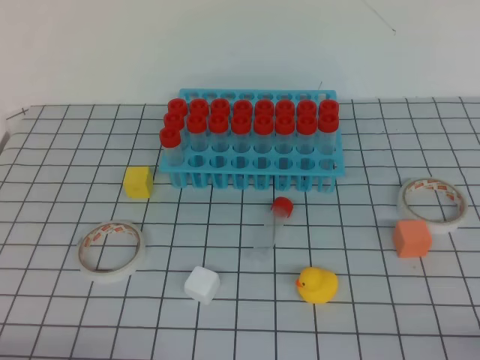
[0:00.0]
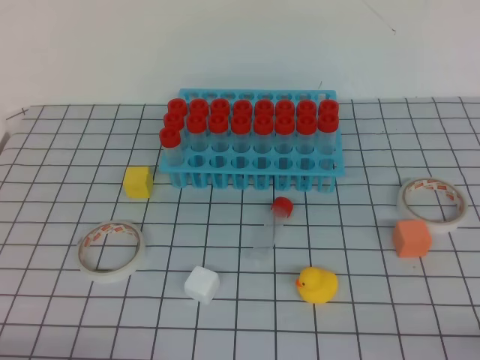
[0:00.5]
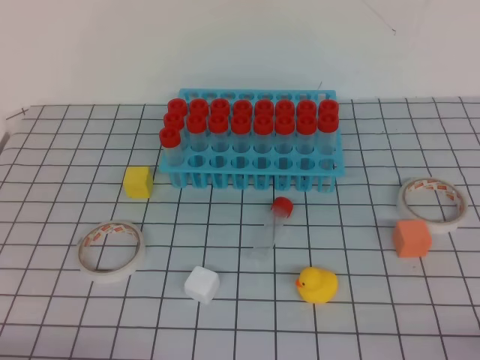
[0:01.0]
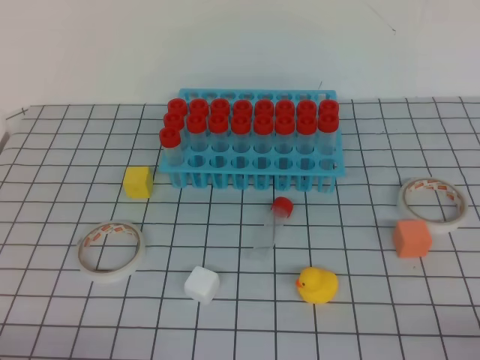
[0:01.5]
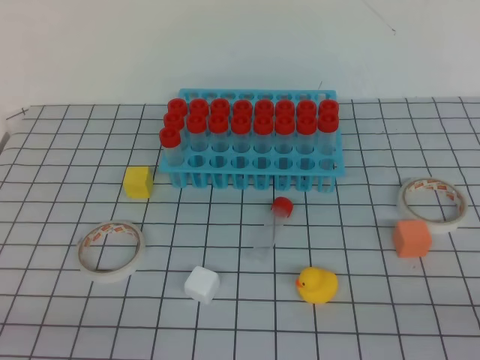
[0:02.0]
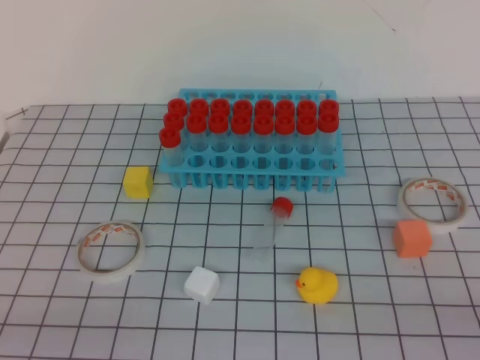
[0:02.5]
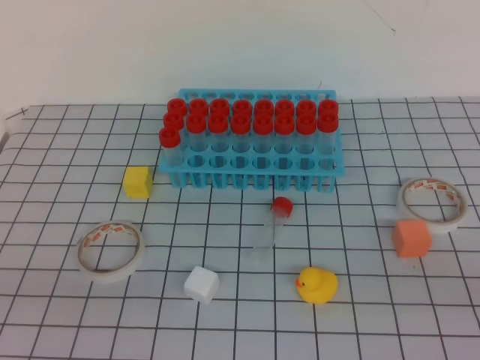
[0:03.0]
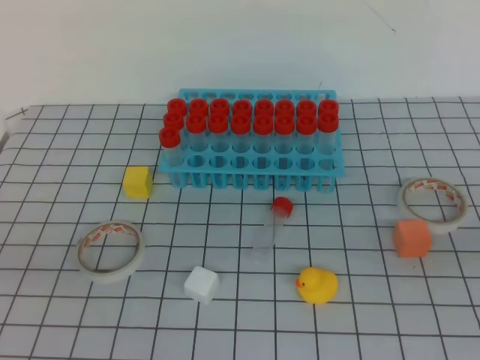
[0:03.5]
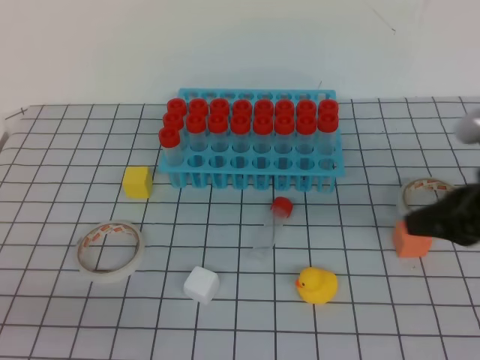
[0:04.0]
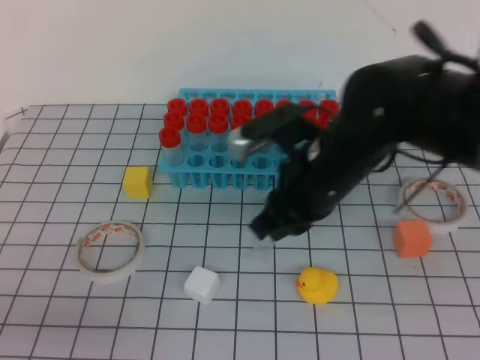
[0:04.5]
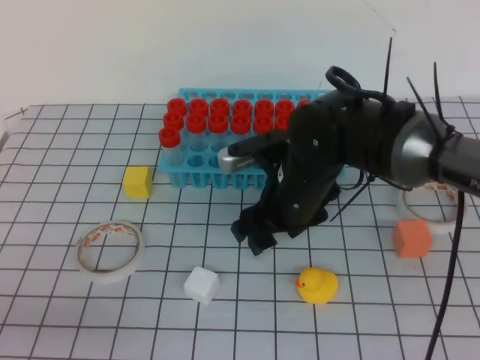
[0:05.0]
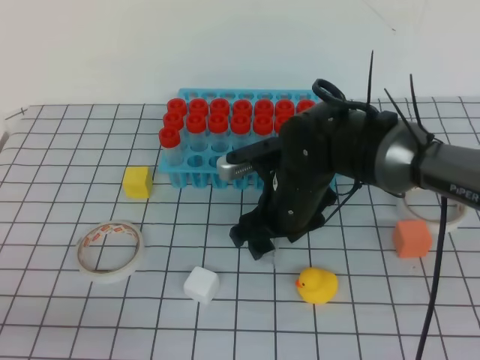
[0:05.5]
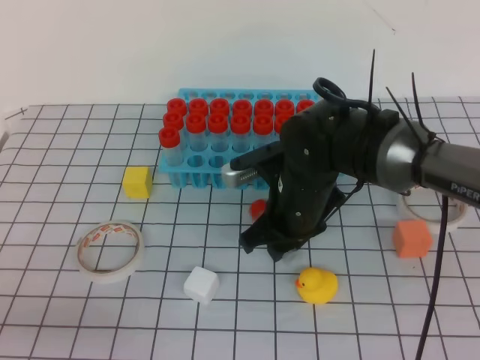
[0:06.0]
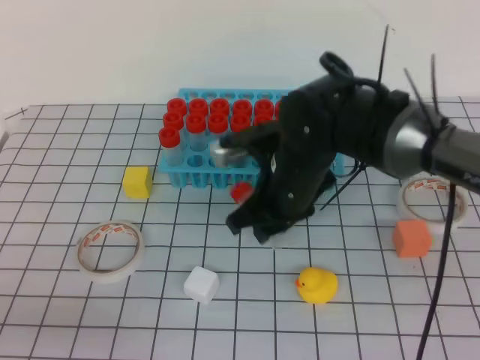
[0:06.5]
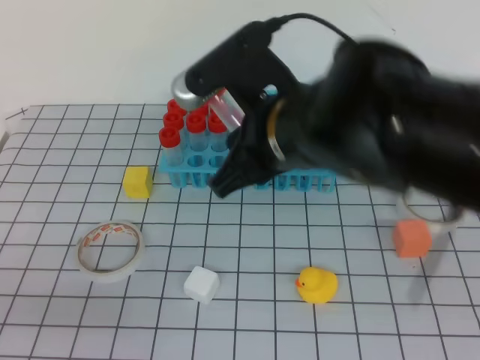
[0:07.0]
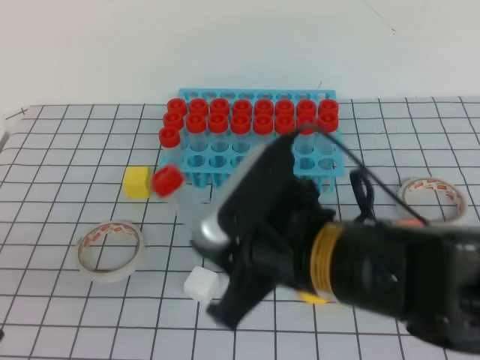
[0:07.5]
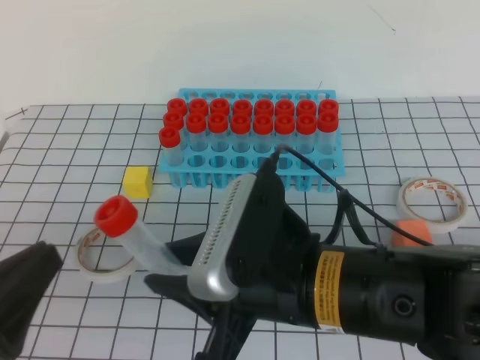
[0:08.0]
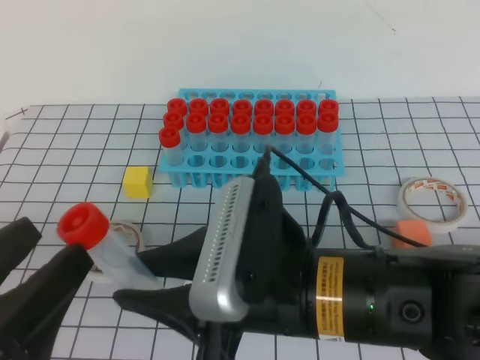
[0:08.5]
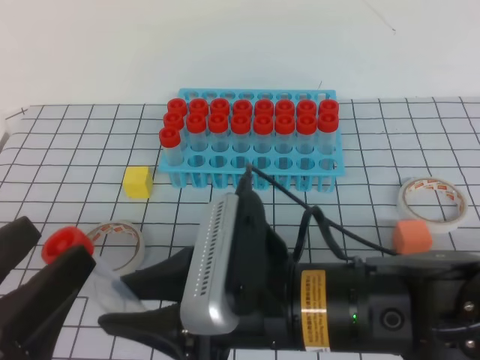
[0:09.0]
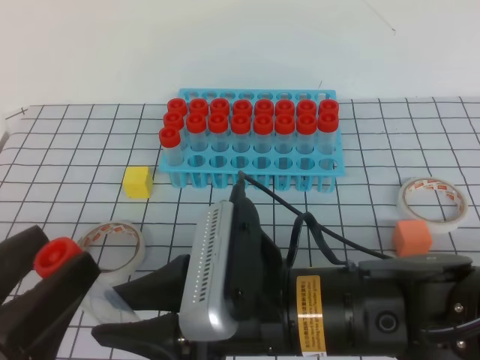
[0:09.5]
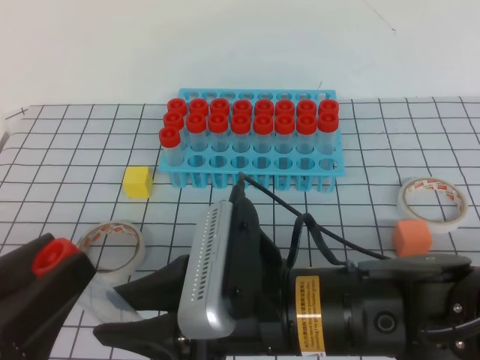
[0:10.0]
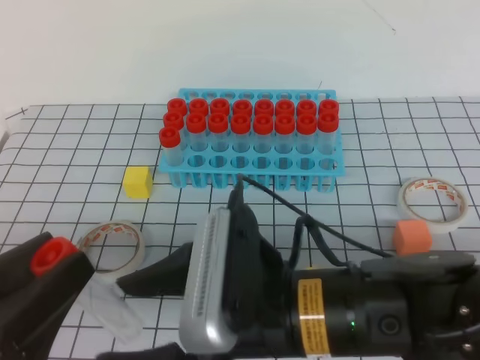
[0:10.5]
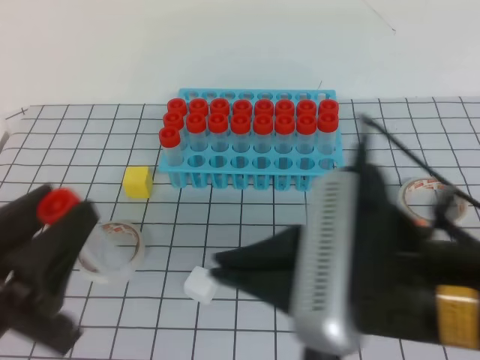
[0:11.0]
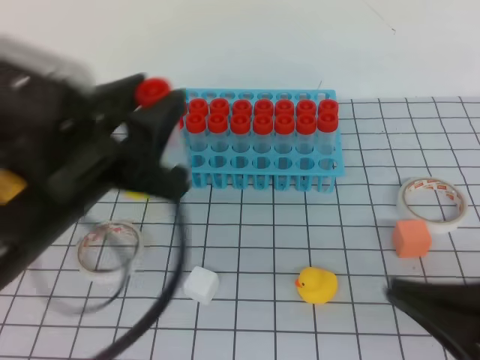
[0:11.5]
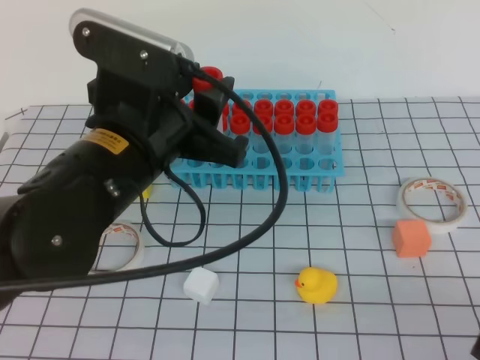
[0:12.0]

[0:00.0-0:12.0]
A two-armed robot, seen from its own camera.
0:02.0 to 0:04.0: The right gripper travels forward by roughly 20 cm.
0:04.0 to 0:06.0: The right gripper travels to the left, forward and downward by approximately 25 cm, and opens up.
0:06.0 to 0:08.0: The right gripper moves backward and upward, roughly 20 cm.
0:08.0 to 0:10.0: The left gripper opens up.
0:10.0 to 0:12.0: The right gripper is displaced to the right and backward by some 25 cm, and closes up. The left gripper moves forward and to the right, approximately 20 cm.

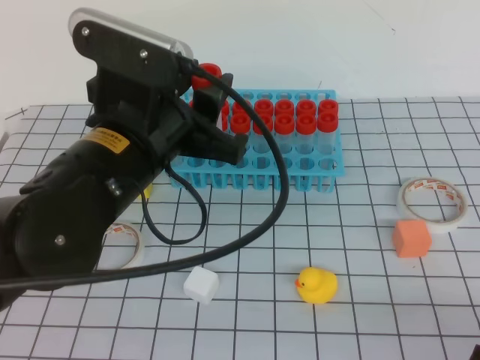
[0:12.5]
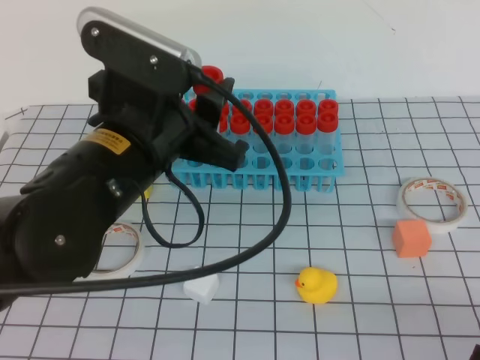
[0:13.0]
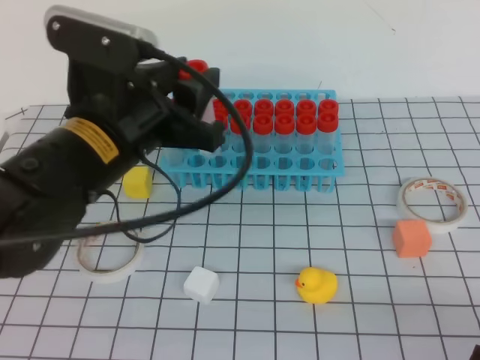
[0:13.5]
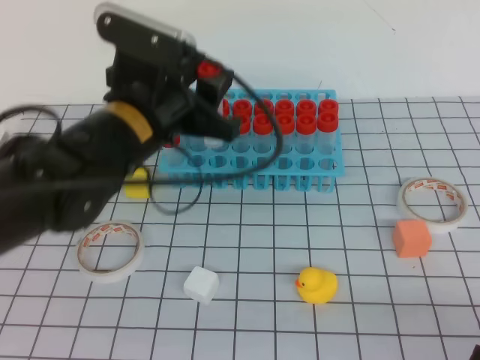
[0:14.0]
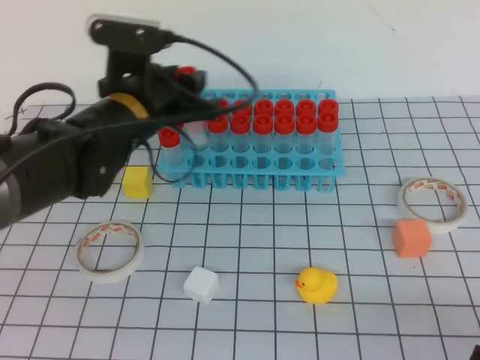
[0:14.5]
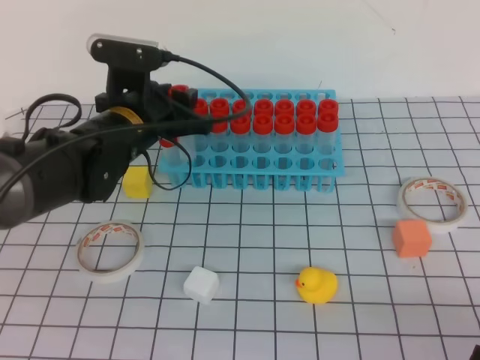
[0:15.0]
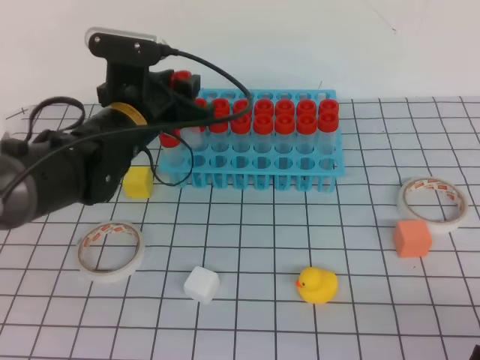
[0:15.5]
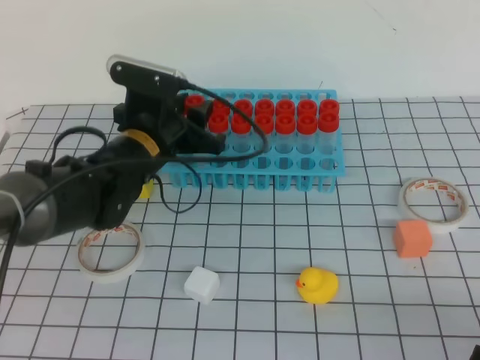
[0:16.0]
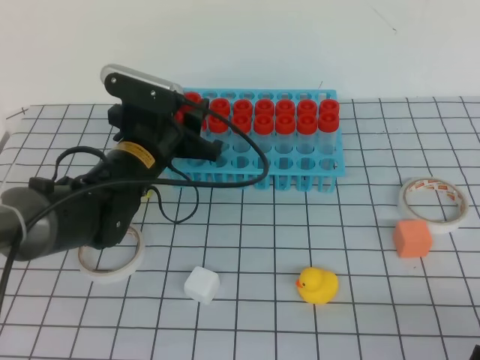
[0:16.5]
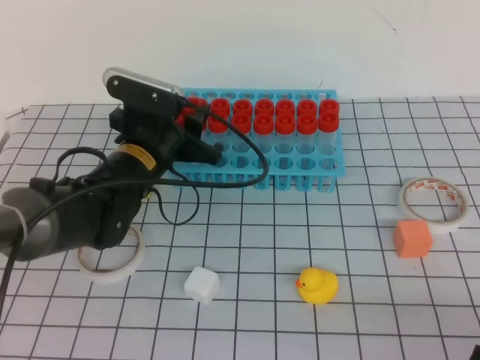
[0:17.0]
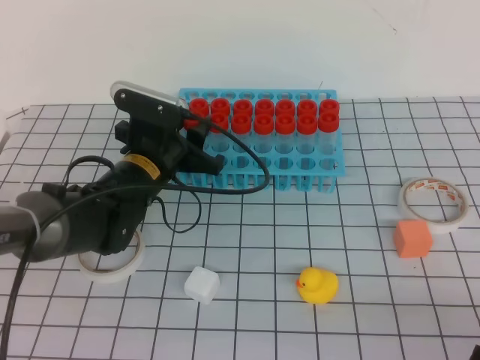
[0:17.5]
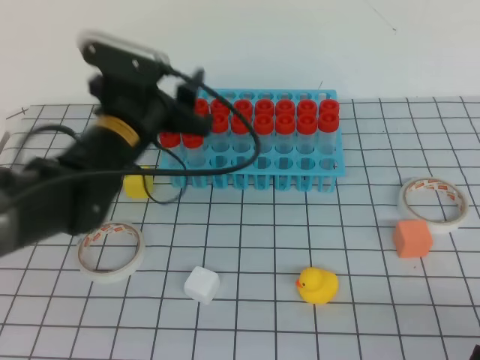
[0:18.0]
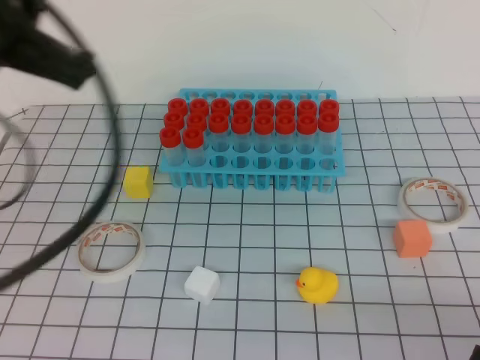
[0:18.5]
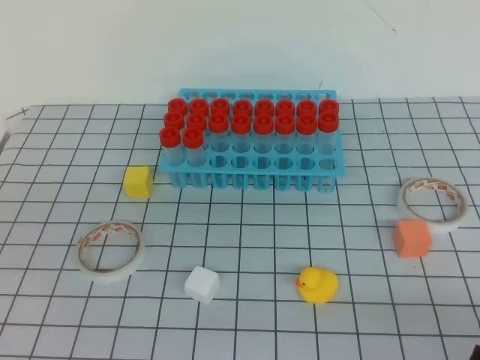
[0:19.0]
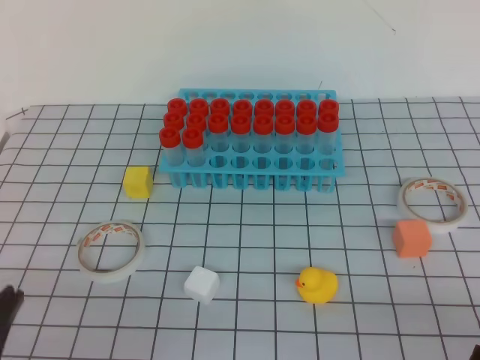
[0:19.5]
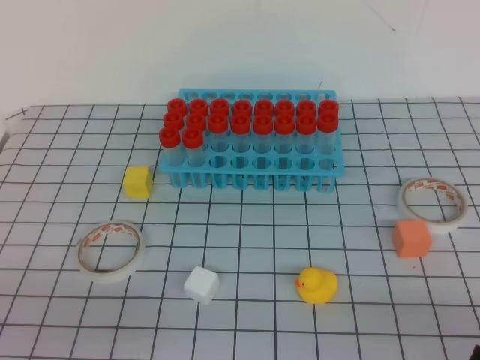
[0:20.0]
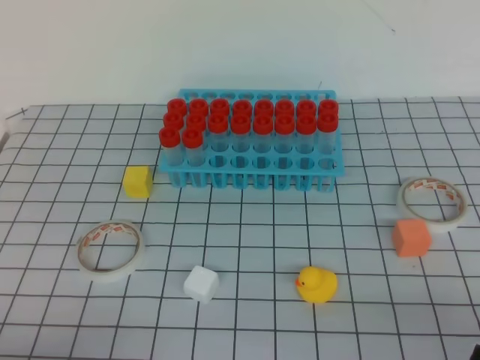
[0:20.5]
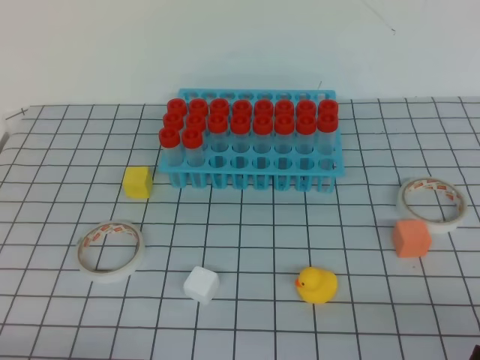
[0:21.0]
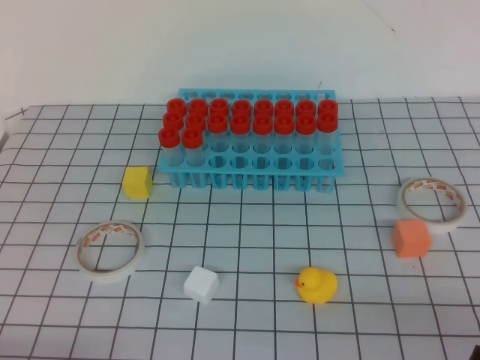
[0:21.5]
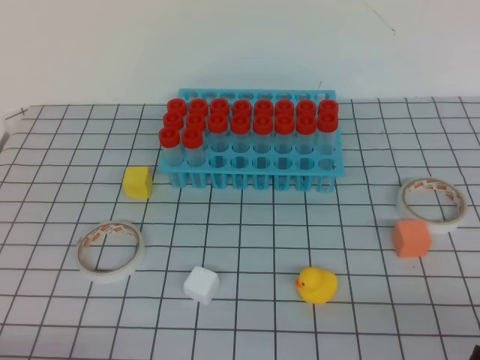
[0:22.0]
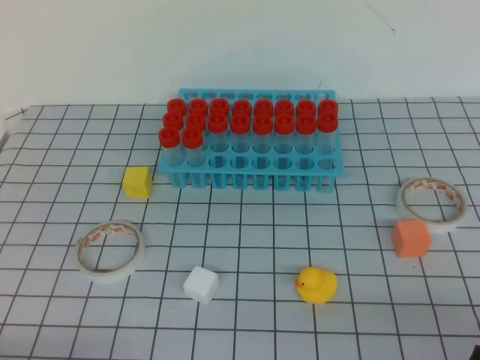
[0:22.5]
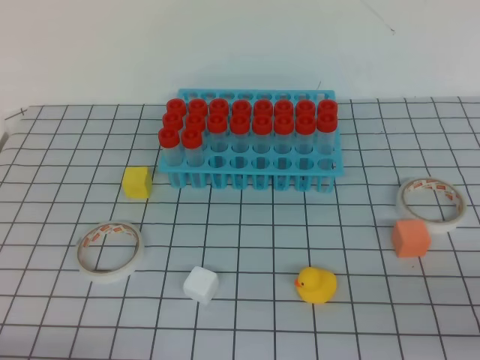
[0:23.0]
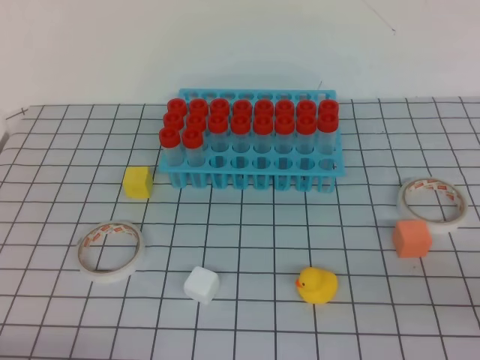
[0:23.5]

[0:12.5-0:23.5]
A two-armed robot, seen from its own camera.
0:12.5 to 0:14.5: The left gripper travels forward by approximately 10 cm.
0:14.5 to 0:16.0: The left gripper heads downward, covering approximately 5 cm.
0:16.0 to 0:18.0: The left gripper moves about 5 cm.
0:18.0 to 0:20.0: The left gripper travels backward and to the left by some 30 cm, and closes.

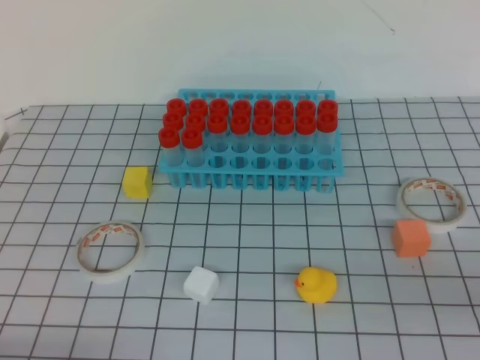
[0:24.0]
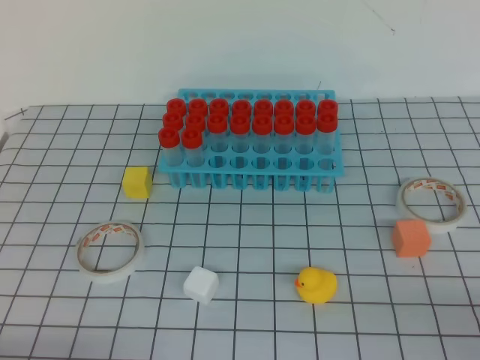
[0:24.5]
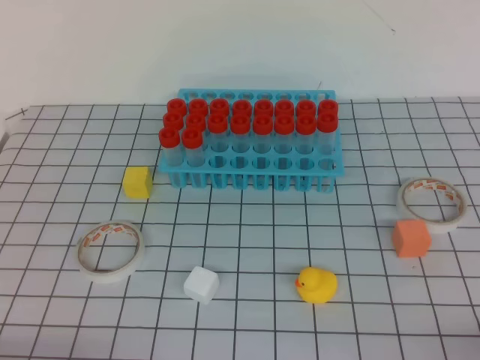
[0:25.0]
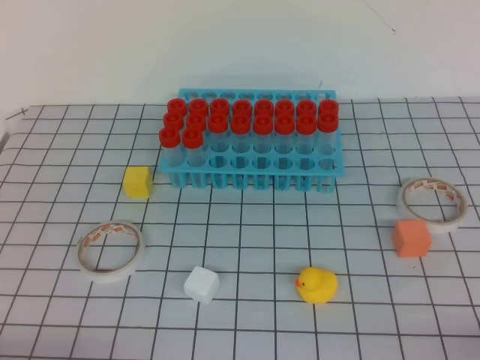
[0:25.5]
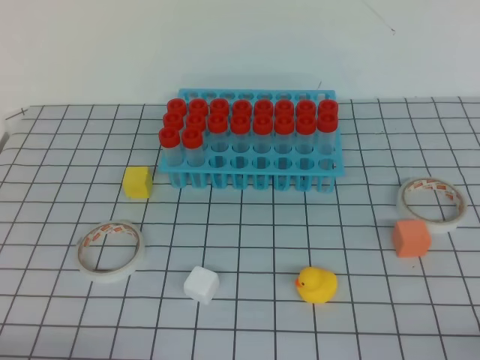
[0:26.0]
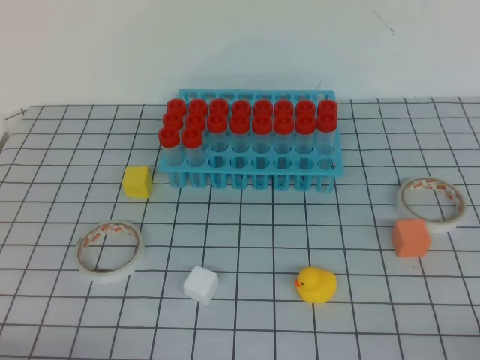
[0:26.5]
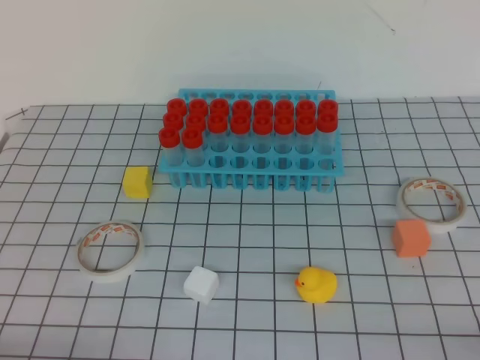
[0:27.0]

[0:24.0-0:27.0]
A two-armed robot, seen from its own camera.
0:24.0 to 0:25.5: The right gripper goes roughly 5 cm downward.
